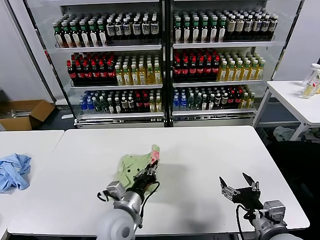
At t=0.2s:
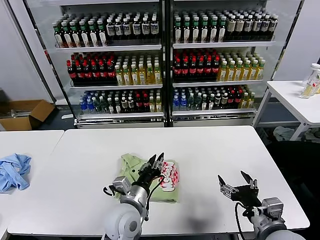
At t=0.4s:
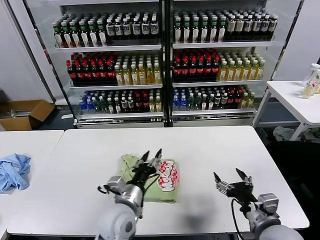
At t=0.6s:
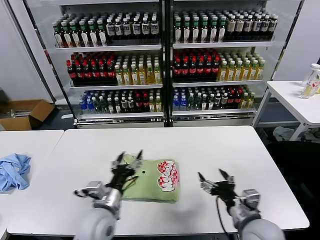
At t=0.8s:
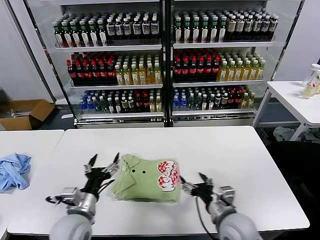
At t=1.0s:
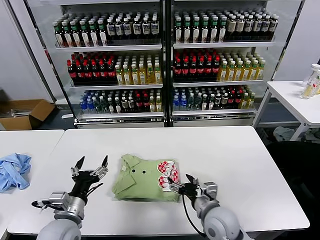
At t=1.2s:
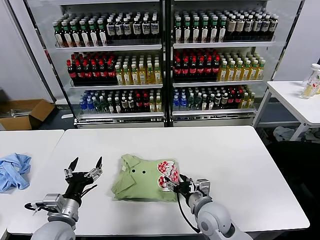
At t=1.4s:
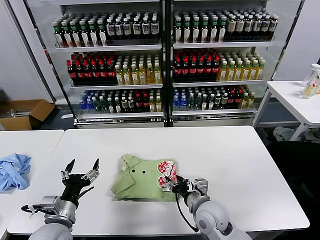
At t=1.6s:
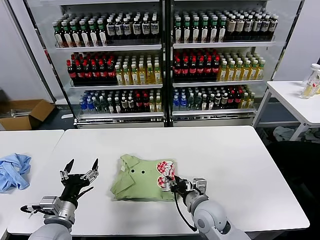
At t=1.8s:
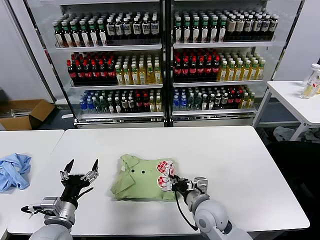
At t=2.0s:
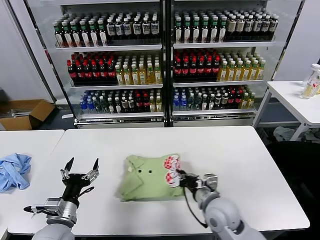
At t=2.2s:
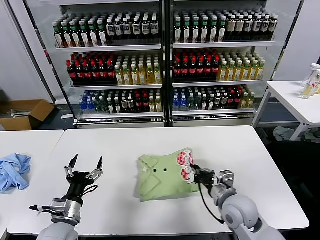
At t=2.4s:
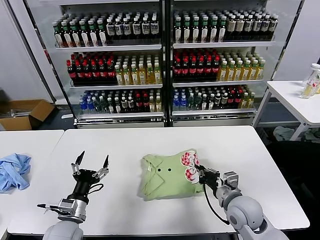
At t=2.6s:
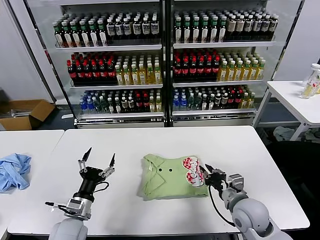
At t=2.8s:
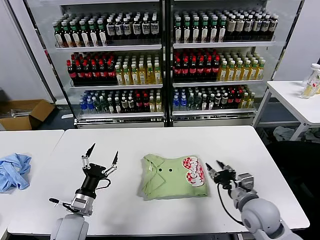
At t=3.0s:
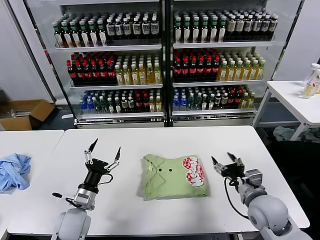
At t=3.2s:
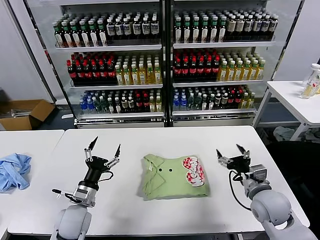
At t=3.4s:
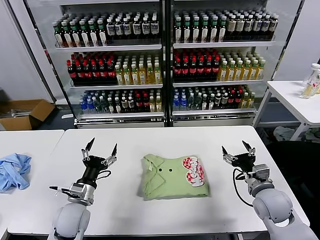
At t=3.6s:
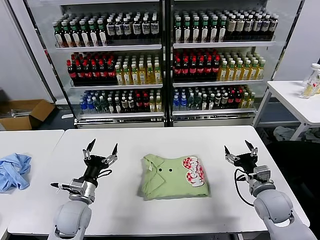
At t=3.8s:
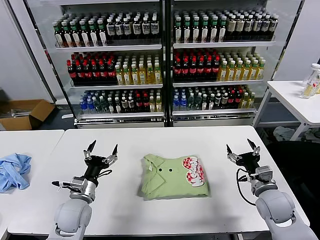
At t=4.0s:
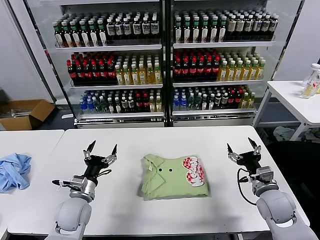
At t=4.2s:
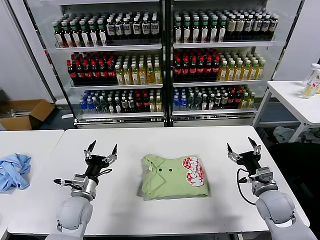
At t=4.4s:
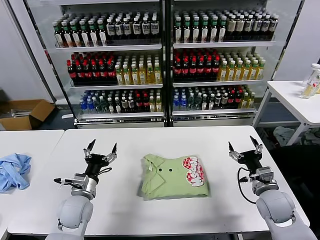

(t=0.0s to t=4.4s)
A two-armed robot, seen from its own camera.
Task of the whole recording: fold and organize the clothes.
Step, t=0.4s - t=2.6s: Drag the clothes to the center of the table.
t=0.0s - t=1.4s: The left gripper shifts some 15 cm to the left, and opens its fingers; the right gripper goes roughly 20 cm to the left, forward and downward.
t=1.4s - t=3.0s: The right gripper is displaced to the right by approximately 15 cm, and closes, then opens again; the left gripper heads downward and forward, covering some 10 cm.
t=3.0s - t=4.4s: The right gripper is displaced to the right by roughly 5 cm.
